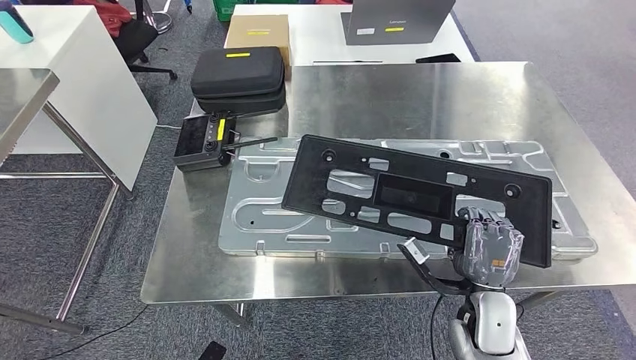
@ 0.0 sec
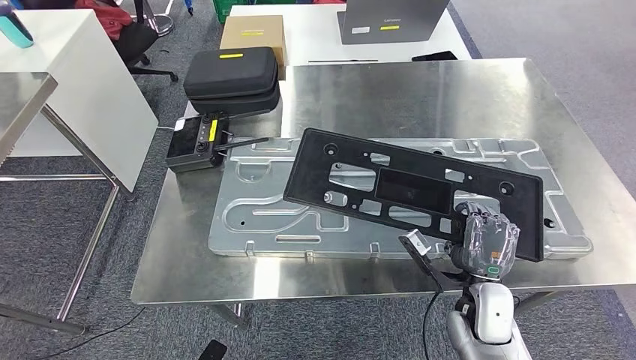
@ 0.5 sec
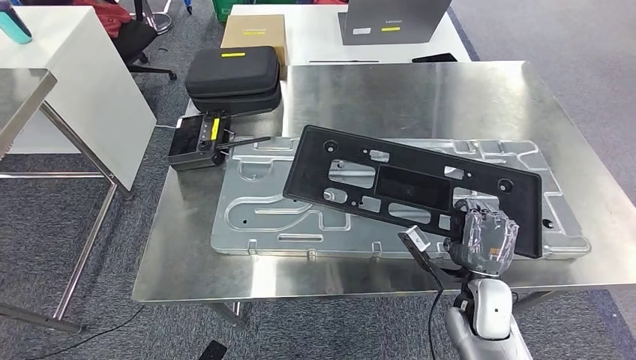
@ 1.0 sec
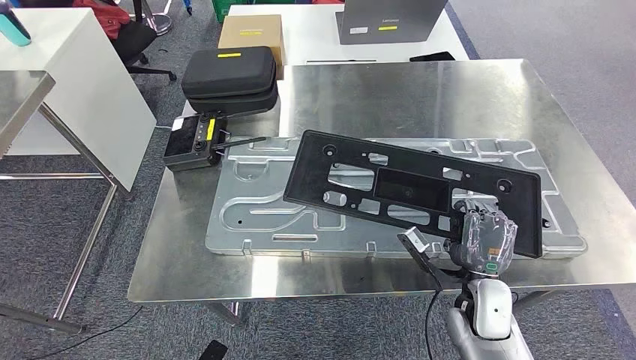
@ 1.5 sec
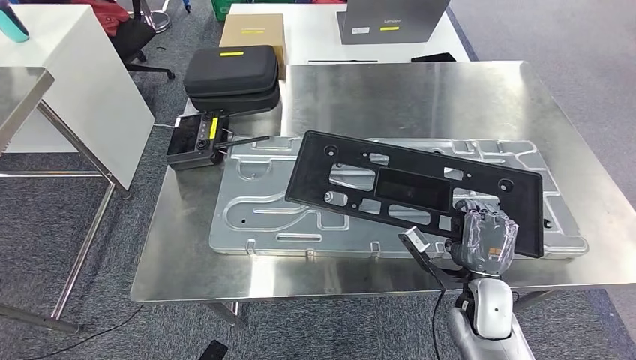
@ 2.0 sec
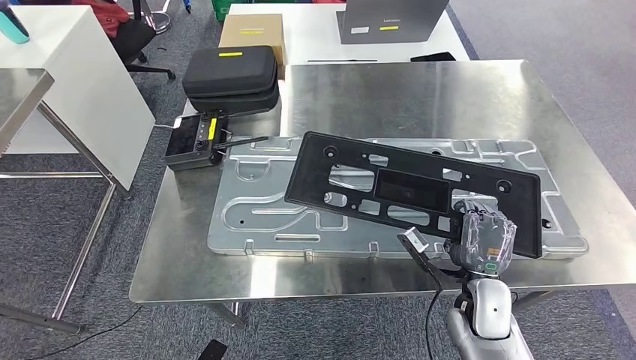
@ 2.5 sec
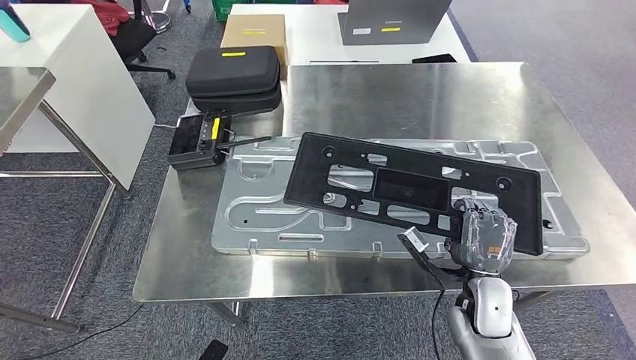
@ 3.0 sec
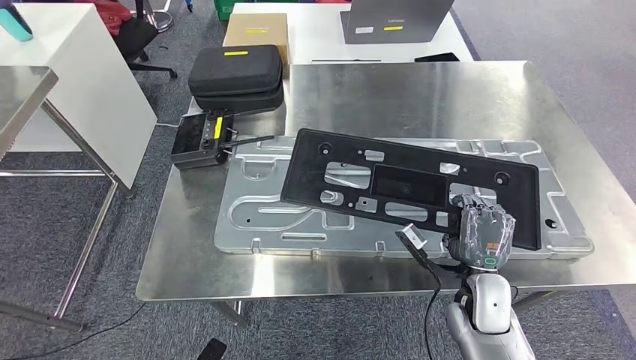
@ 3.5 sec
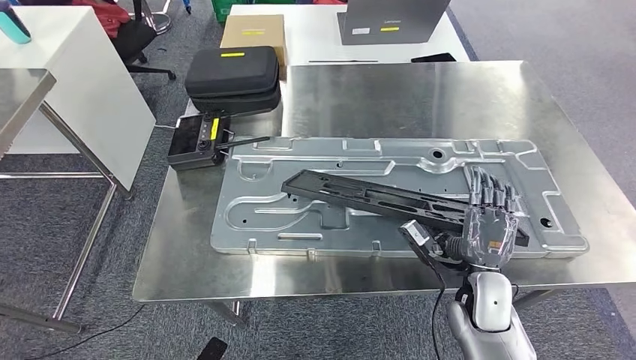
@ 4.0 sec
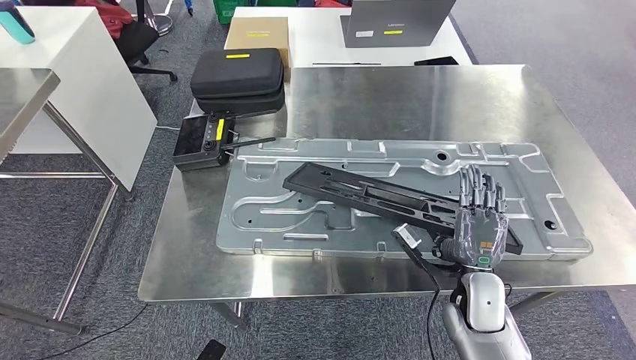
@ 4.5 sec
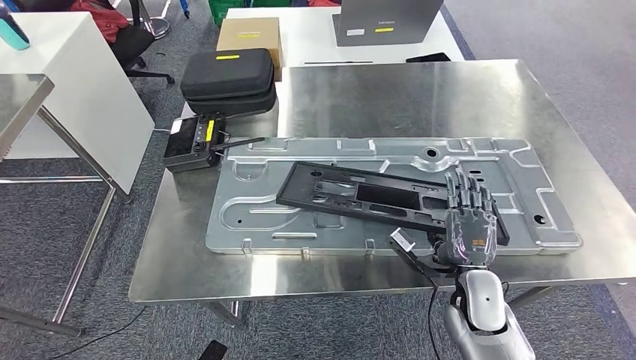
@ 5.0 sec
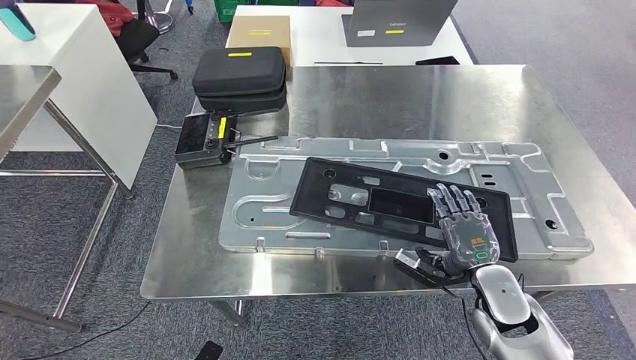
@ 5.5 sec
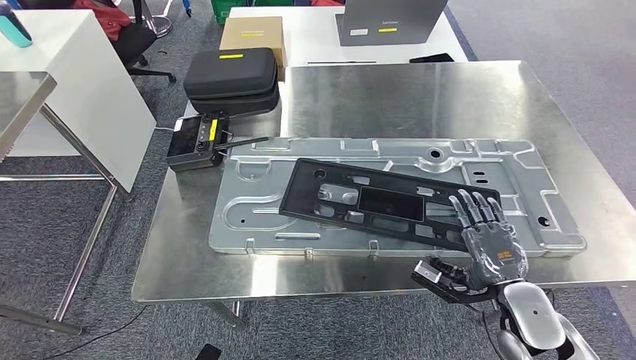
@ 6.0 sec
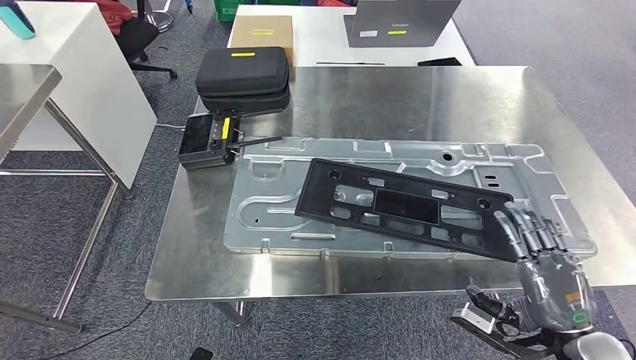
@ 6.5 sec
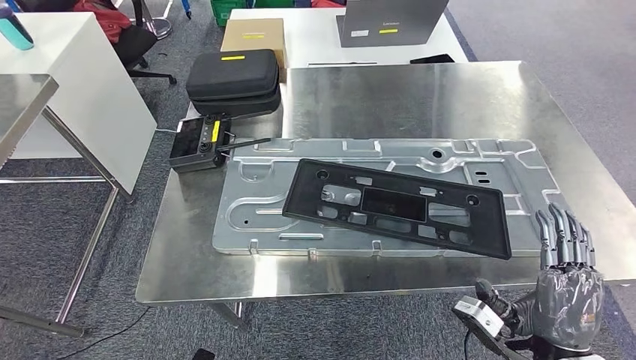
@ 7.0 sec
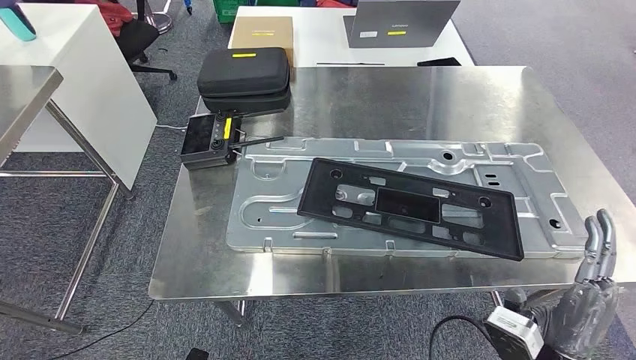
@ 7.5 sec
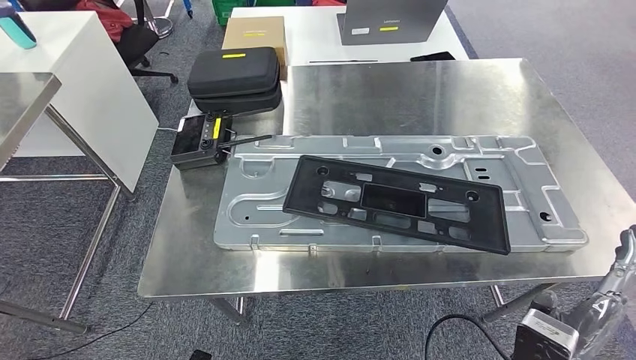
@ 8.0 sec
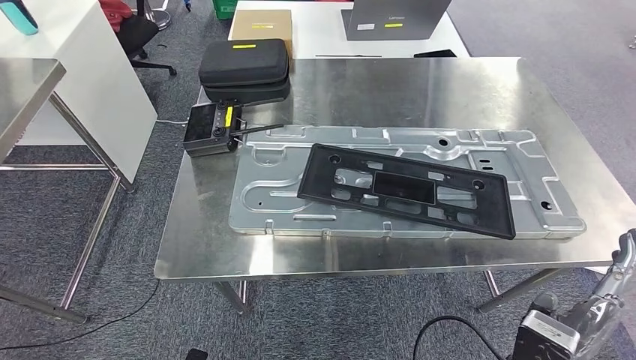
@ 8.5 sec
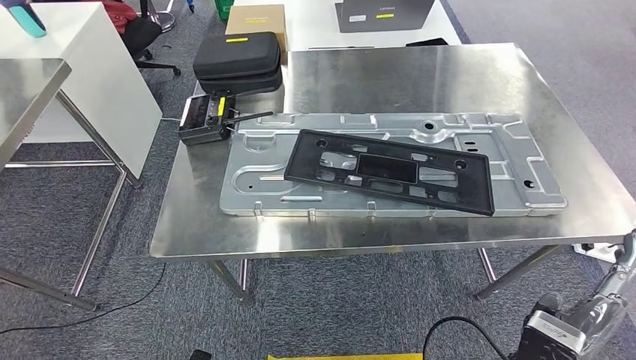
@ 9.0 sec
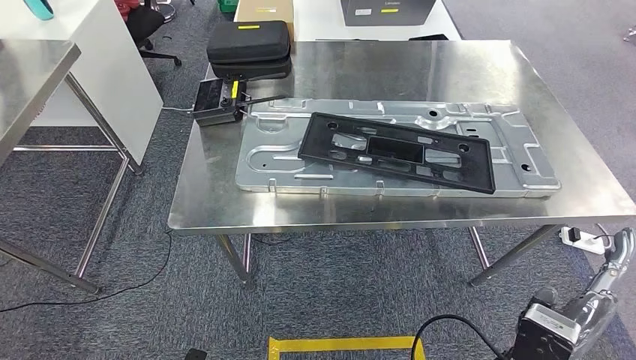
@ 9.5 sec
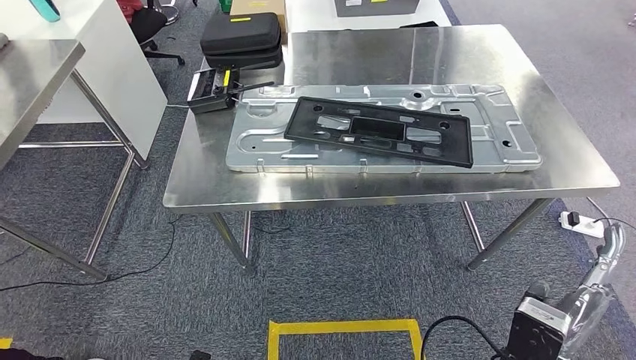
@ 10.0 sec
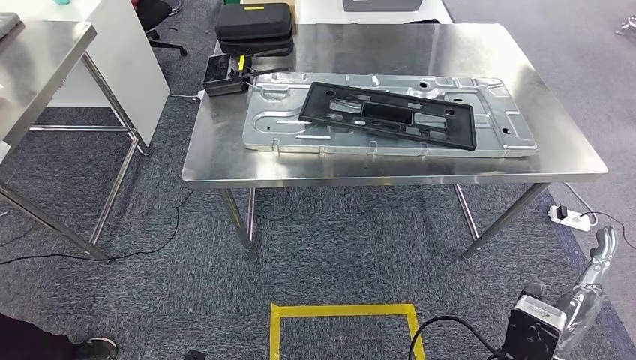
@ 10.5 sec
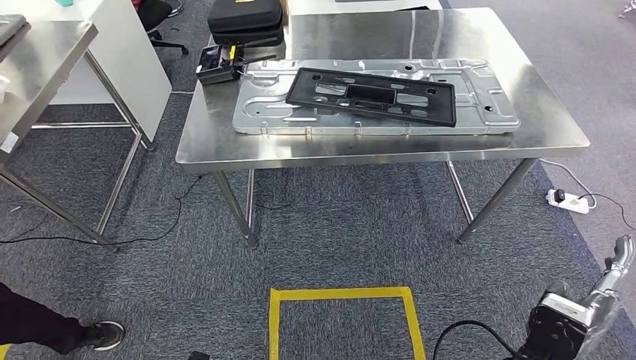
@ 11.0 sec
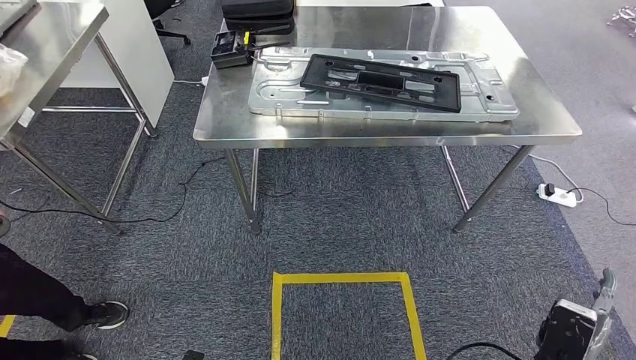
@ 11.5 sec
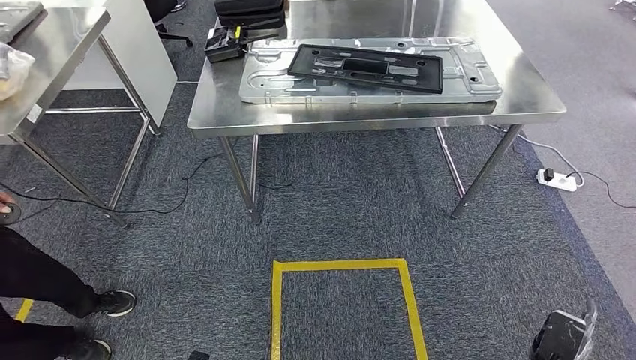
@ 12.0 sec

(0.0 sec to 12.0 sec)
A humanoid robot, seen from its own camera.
Step, 0.0 sec - 6.5 sec: Insert the large material into the corresponding hole on the workbench.
0.0 sec - 4.0 sec: The hands make only small movements.
4.0 sec - 6.0 sec: The right hand is displaced to the right by approximately 5 cm.
6.0 sec - 8.0 sec: The right hand shifts some 10 cm backward and to the left.

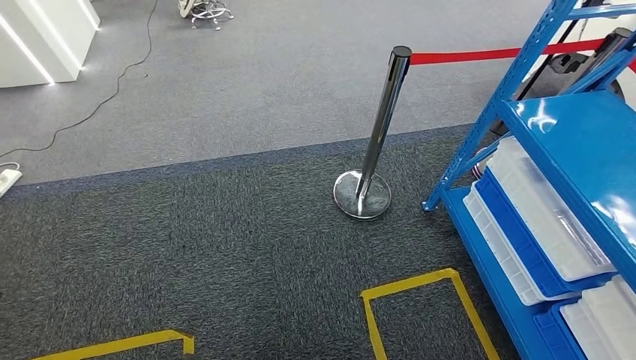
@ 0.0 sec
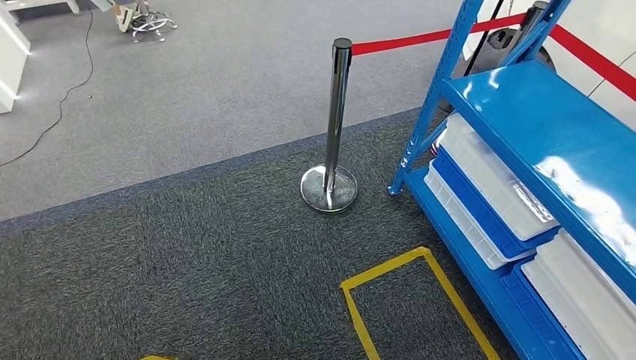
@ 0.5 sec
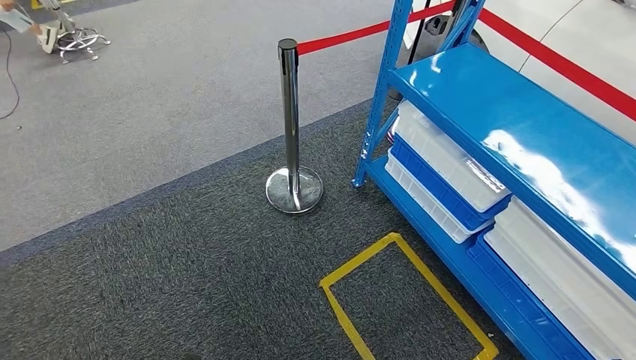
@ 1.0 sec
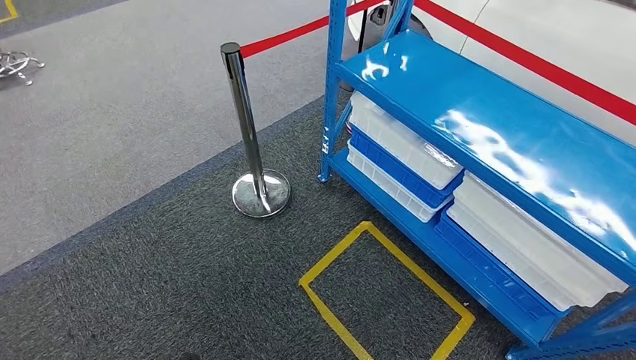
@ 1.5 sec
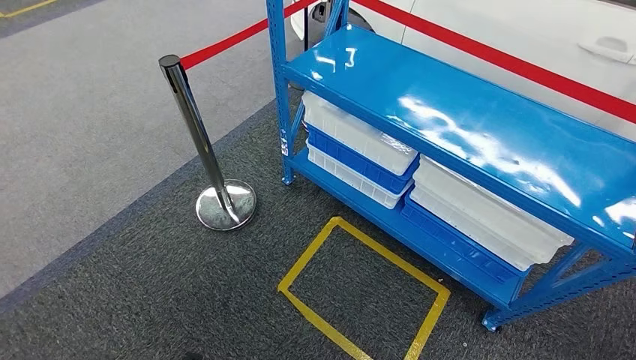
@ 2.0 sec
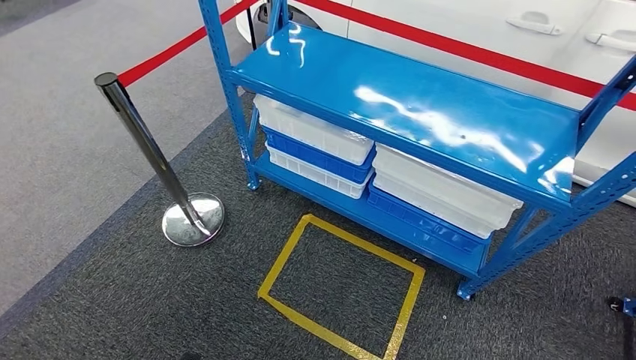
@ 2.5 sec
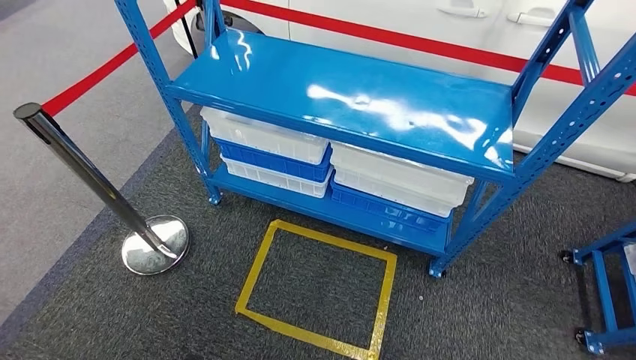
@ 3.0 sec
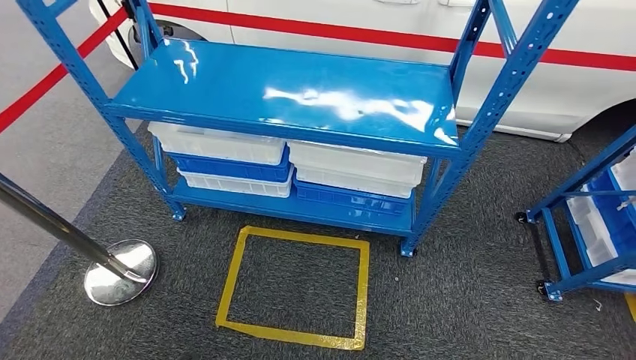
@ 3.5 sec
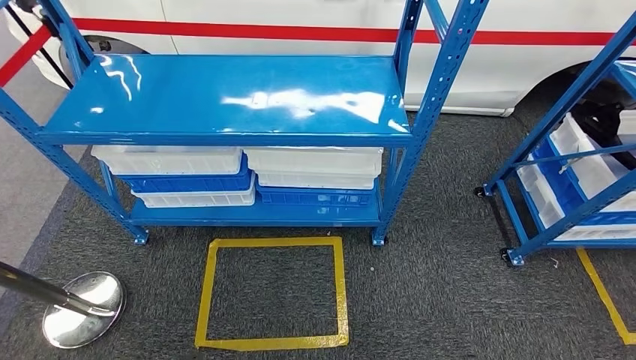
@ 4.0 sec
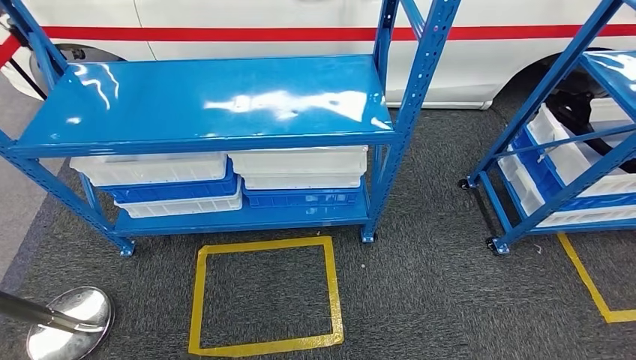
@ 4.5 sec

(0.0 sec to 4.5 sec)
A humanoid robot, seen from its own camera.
Step, 0.0 sec - 4.5 sec: Move to the initial position of the shelf.
